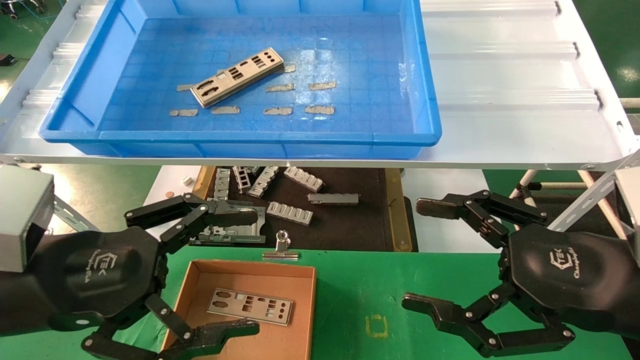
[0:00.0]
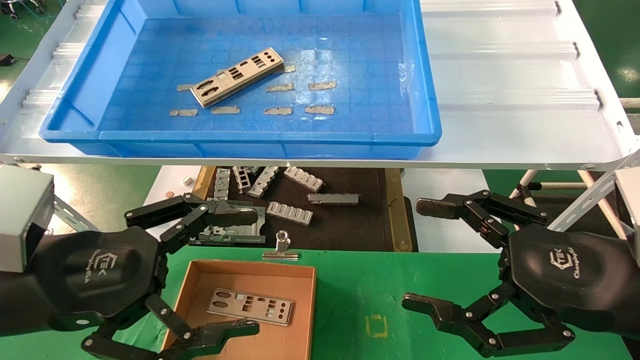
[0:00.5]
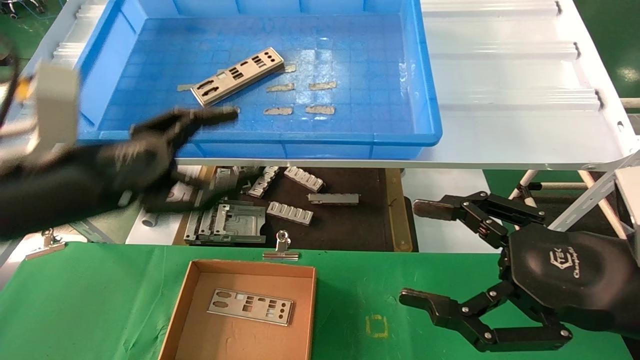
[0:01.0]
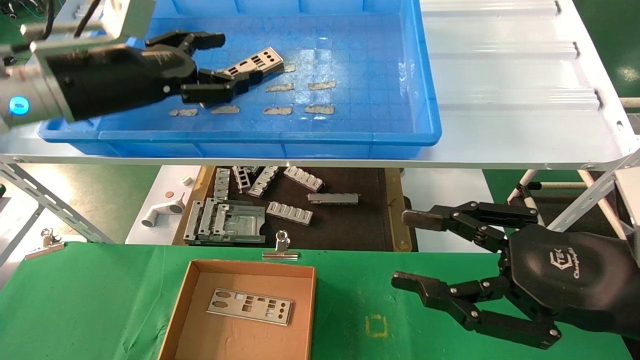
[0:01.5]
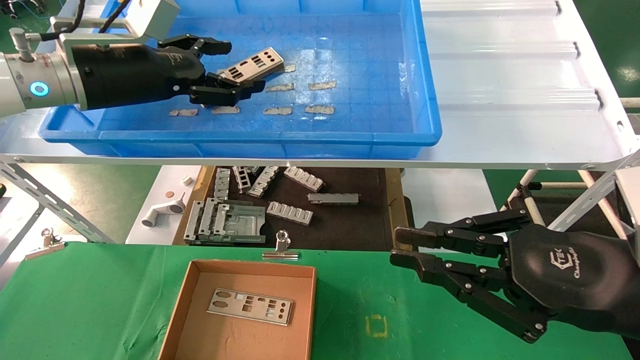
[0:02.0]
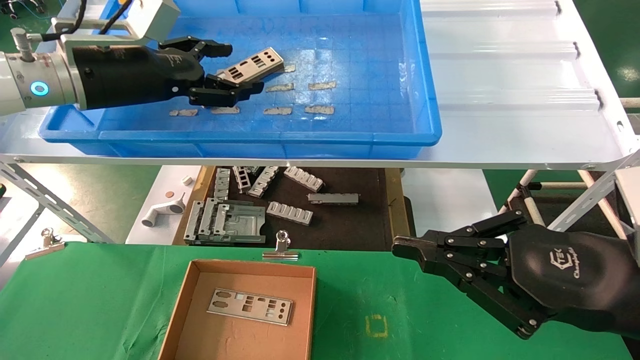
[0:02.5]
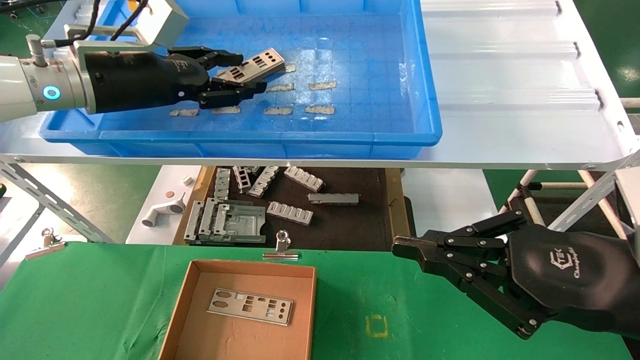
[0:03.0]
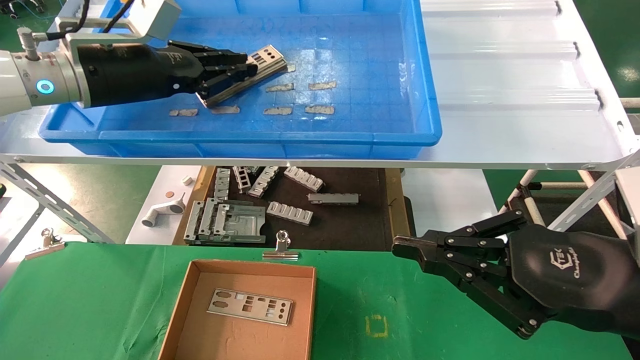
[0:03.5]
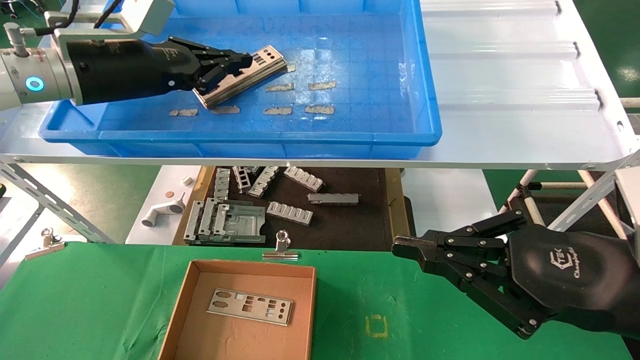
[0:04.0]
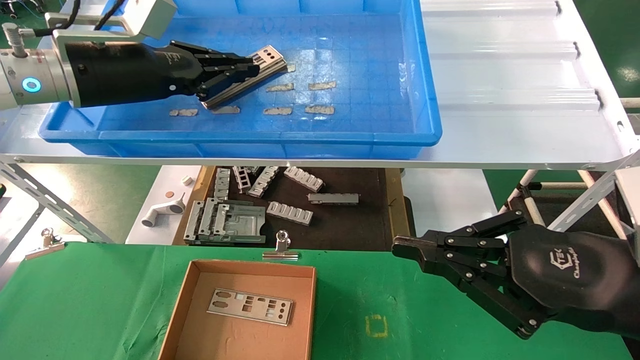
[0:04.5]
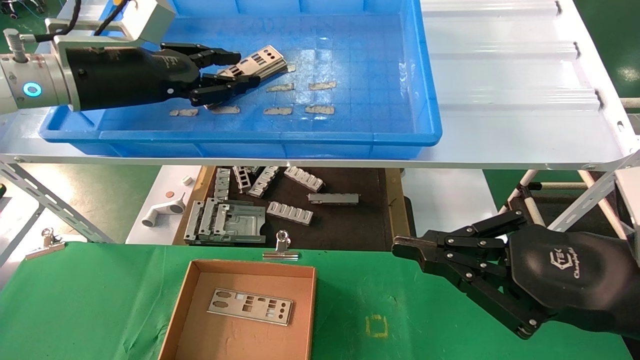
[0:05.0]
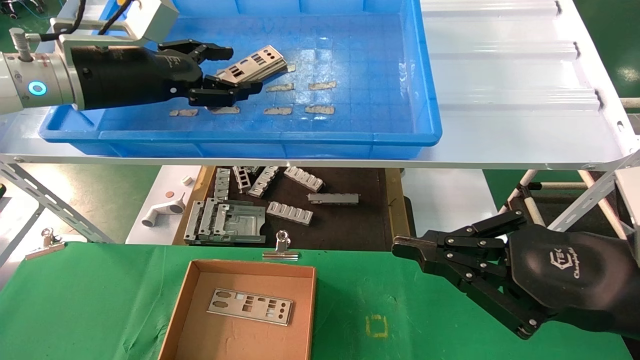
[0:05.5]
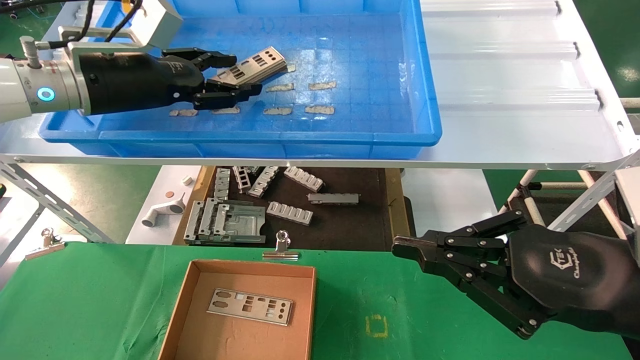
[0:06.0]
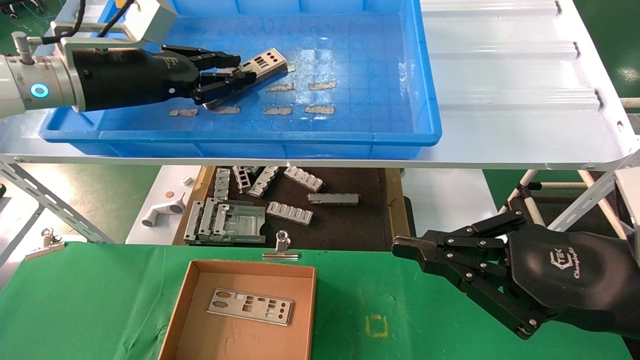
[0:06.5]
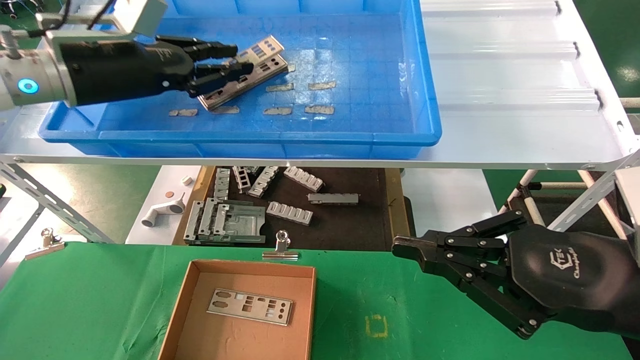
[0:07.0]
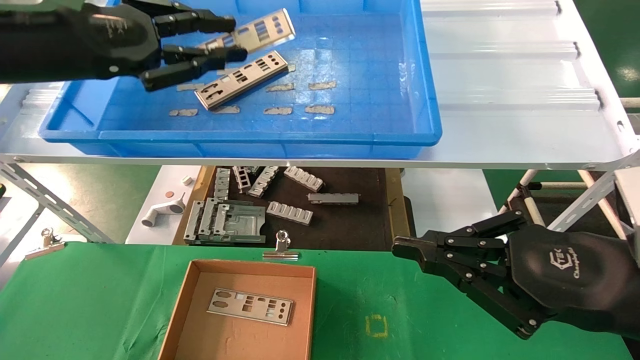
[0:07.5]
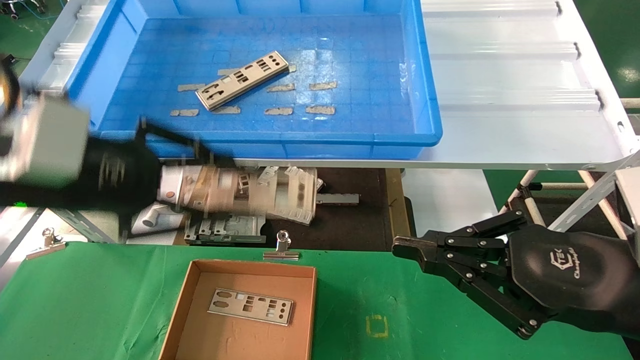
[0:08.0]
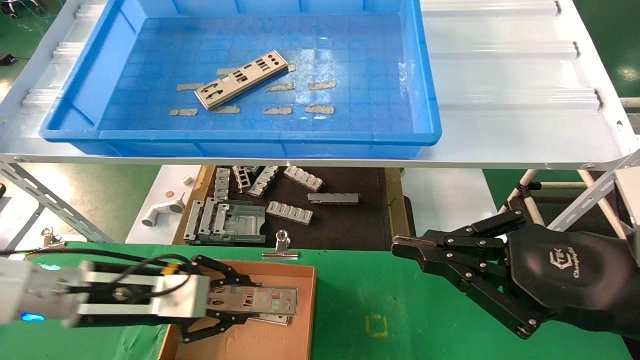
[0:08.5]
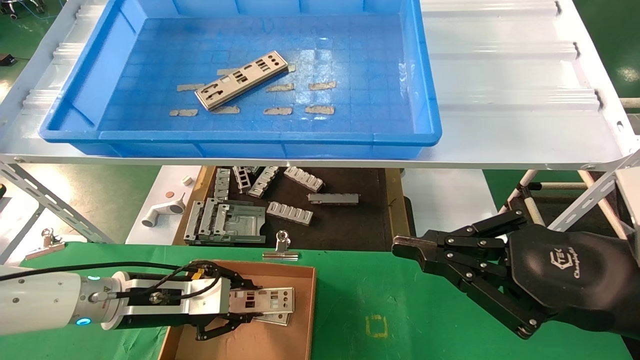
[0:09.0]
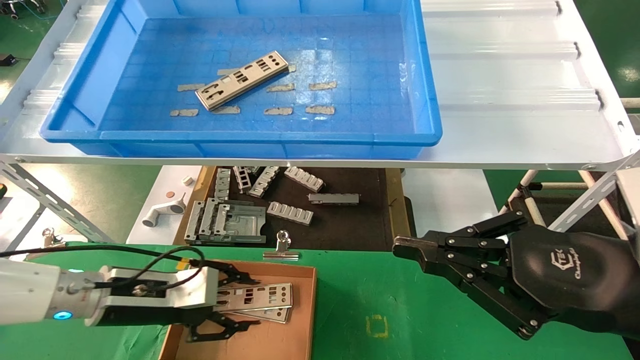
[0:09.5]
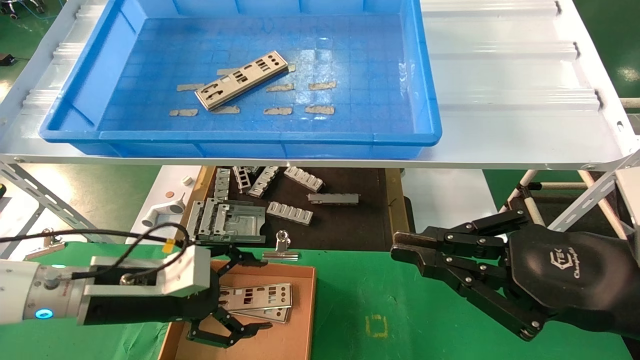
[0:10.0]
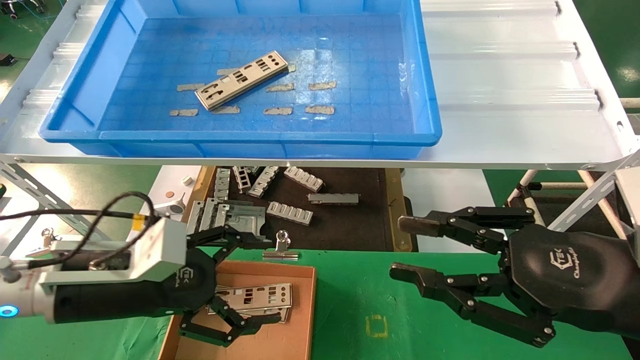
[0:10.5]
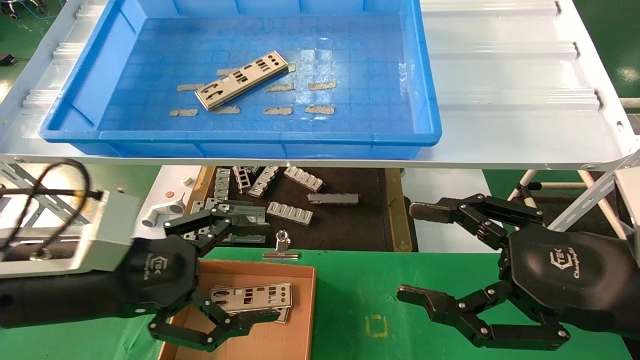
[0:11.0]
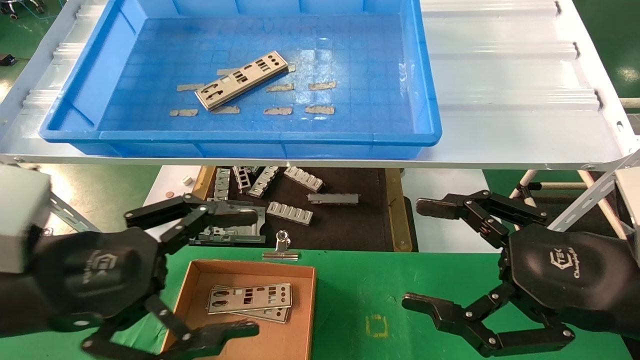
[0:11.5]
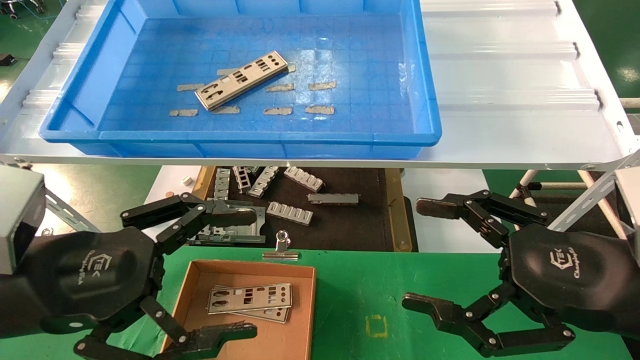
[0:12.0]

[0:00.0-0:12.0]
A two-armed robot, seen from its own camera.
Task of the whole recording: pick up the parts on the tray and put them in the cardboard box.
Step, 0:01.5 to 0:06.5: Pick up the IO bracket from the container box.
Step, 0:07.0 to 0:09.0: Place the IO bracket into the ingredient slot.
0:00.0 to 0:02.0: The right gripper closes; the left gripper shifts approximately 25 cm forward and upward.
0:02.0 to 0:04.0: The left gripper closes its fingers.
0:04.0 to 0:06.0: The left gripper opens.
0:06.0 to 0:08.0: The left gripper heads backward and downward, covering approximately 15 cm, and closes its fingers.
0:08.0 to 0:10.0: The left gripper shifts approximately 15 cm downward, and opens its fingers.
0:10.0 to 0:12.0: The right gripper opens; the left gripper moves backward and upward, about 15 cm.

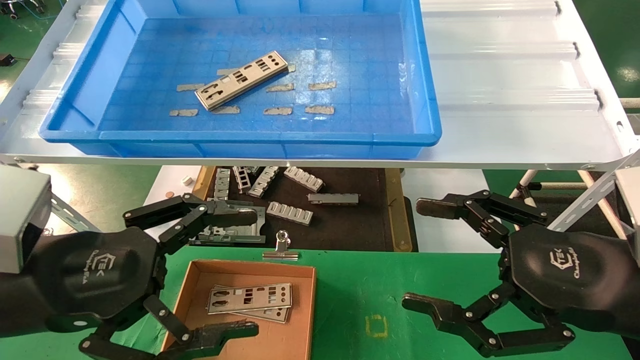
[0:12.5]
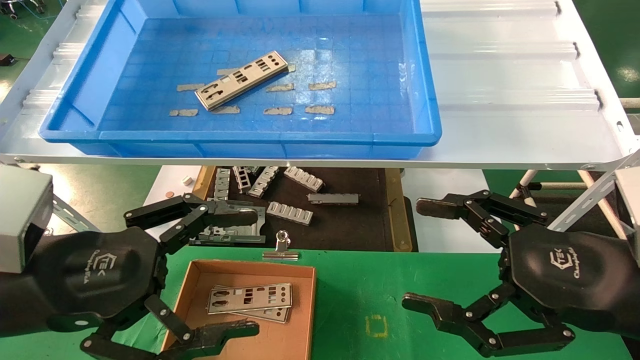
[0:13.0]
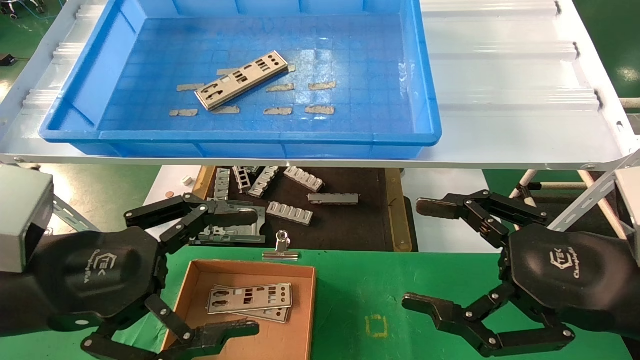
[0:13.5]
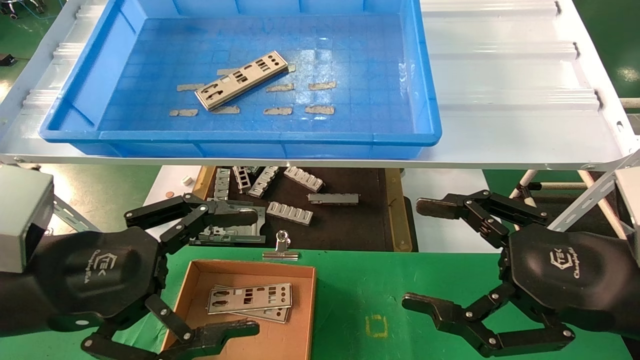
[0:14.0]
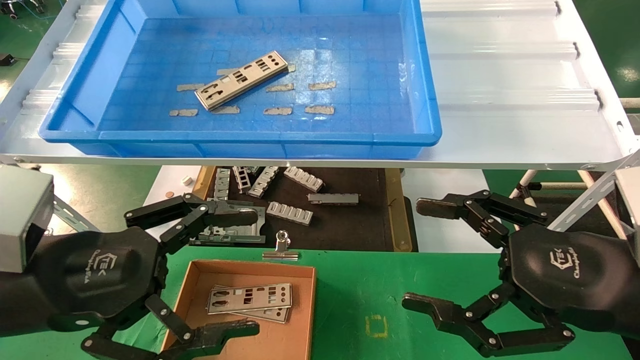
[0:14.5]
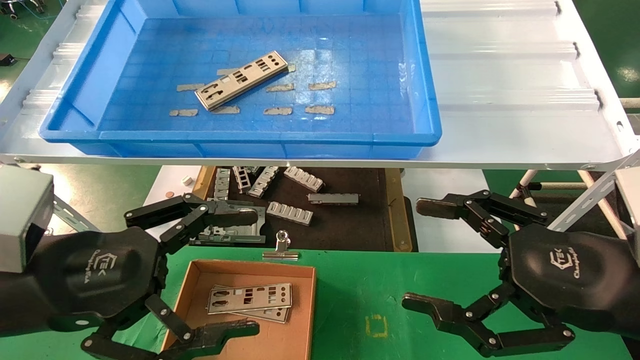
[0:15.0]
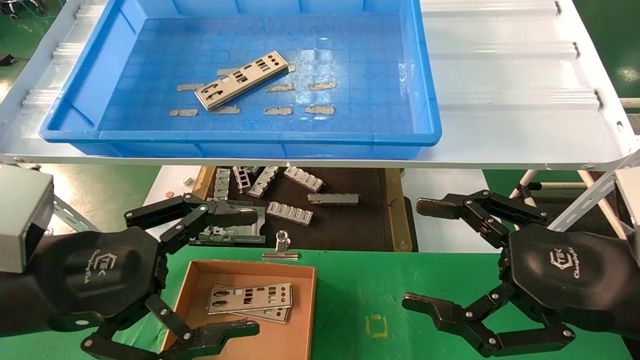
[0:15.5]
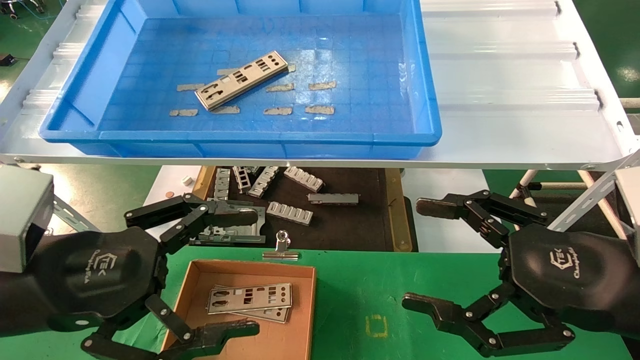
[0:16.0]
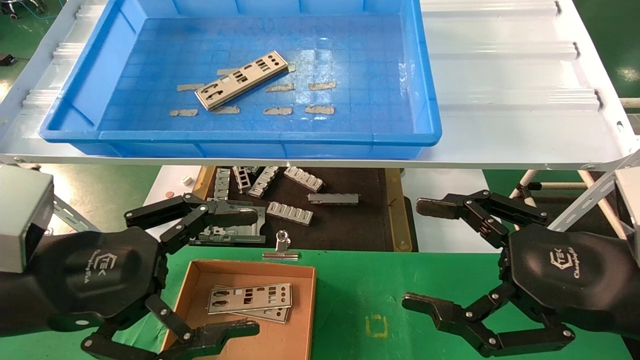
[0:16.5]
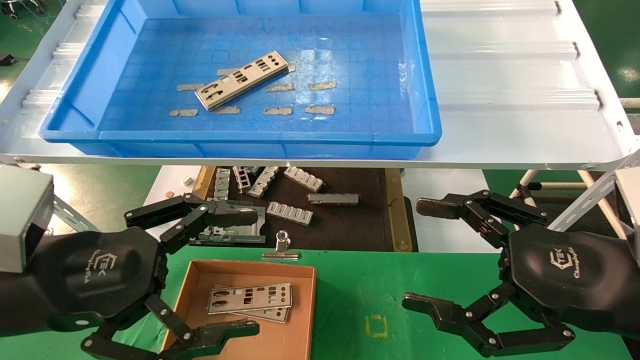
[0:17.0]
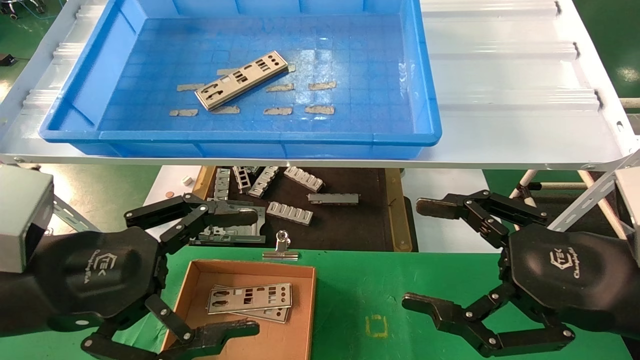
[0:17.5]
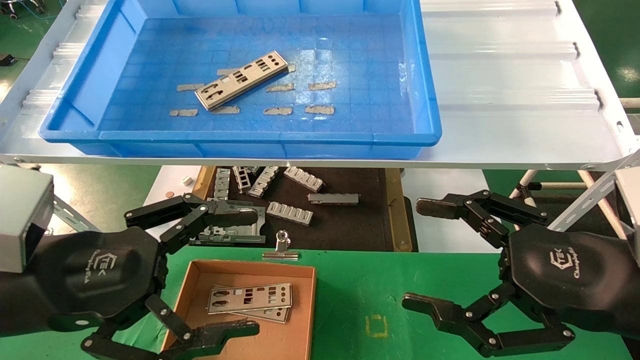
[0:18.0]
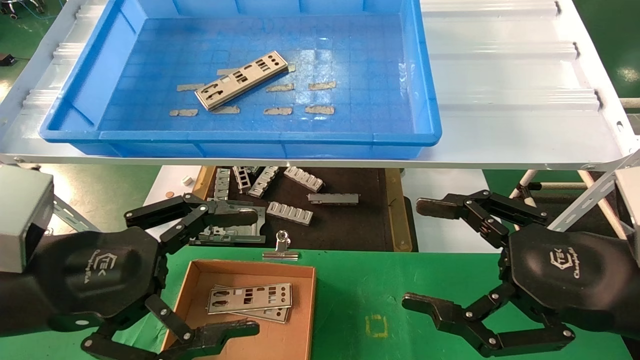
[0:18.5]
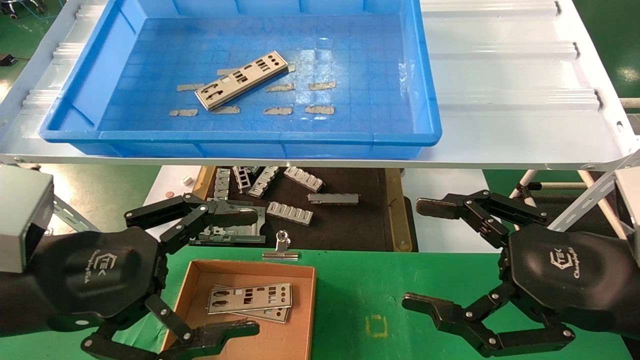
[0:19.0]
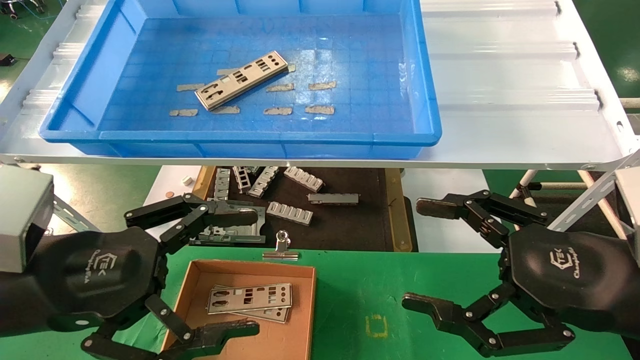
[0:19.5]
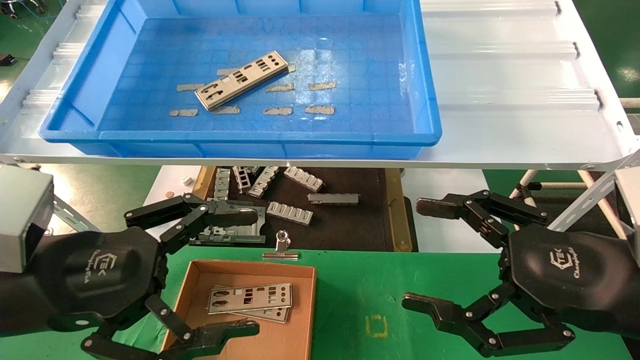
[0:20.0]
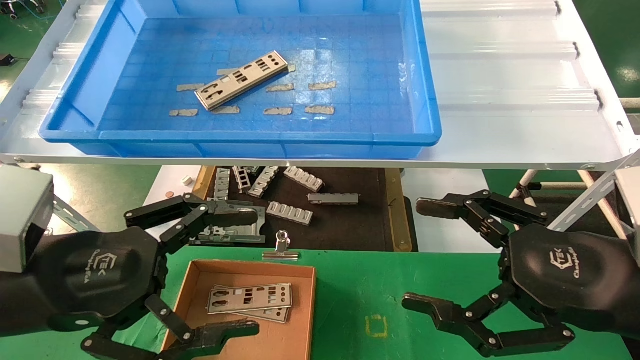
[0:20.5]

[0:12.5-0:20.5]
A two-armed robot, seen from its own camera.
Task of the whole recording: pick up the parts on the tray and put them in the cardboard box.
0:12.5 to 0:20.5: Neither gripper changes place.
